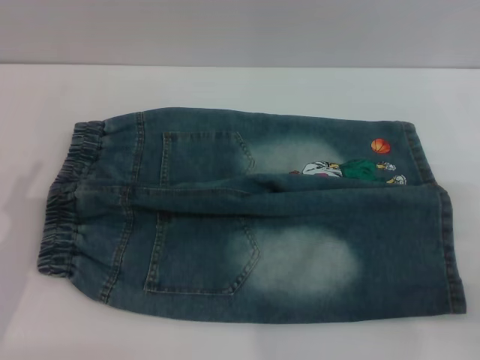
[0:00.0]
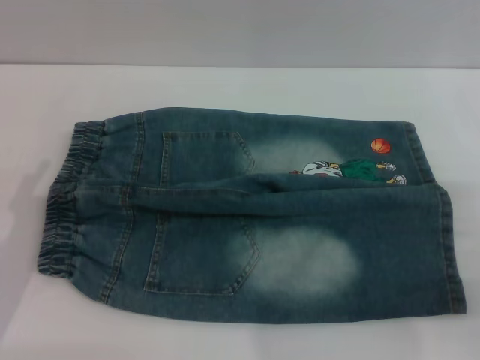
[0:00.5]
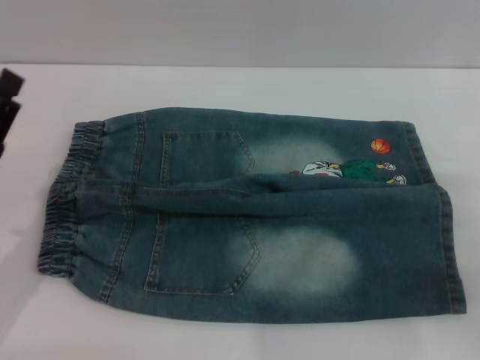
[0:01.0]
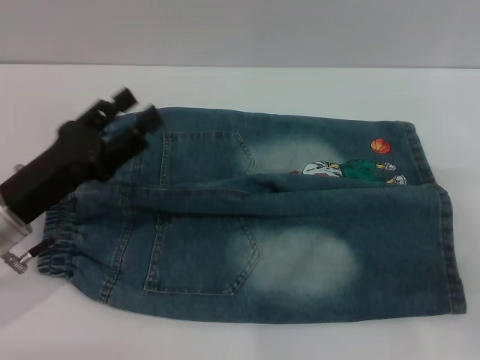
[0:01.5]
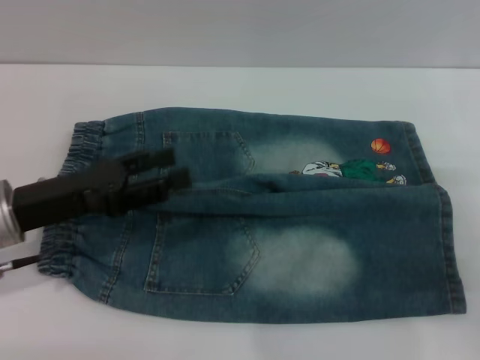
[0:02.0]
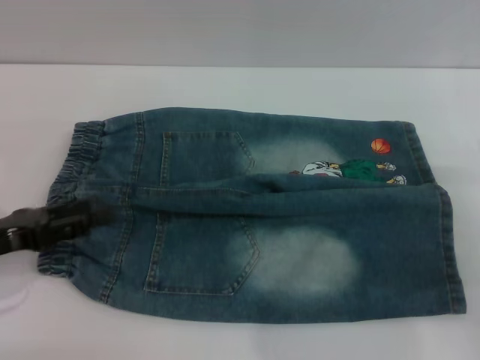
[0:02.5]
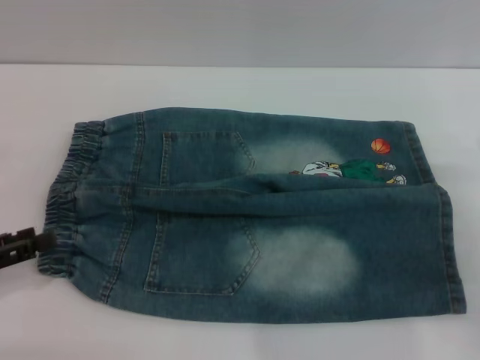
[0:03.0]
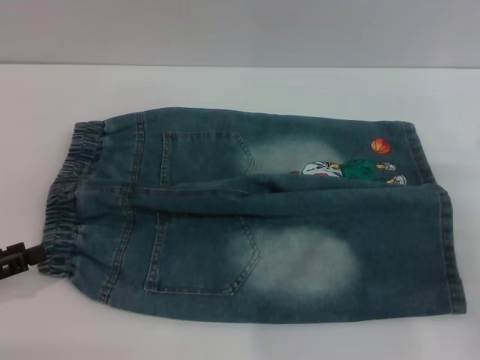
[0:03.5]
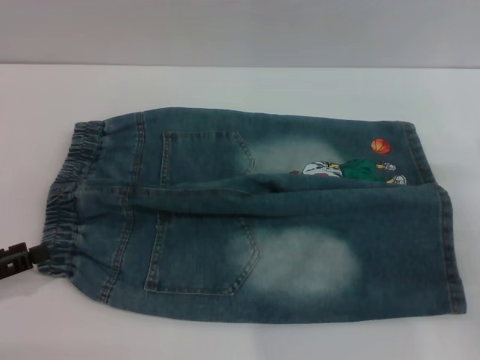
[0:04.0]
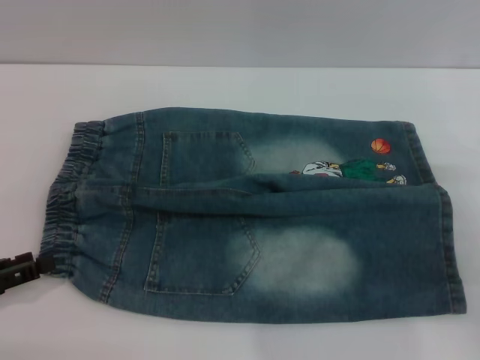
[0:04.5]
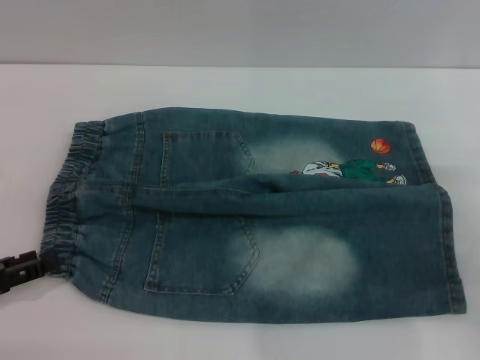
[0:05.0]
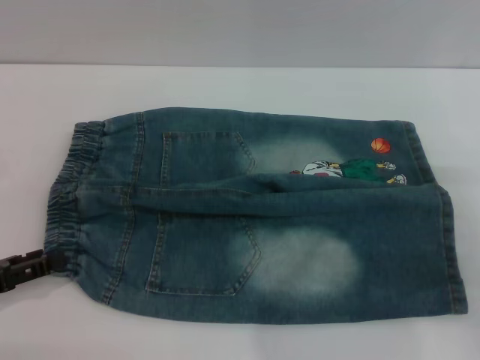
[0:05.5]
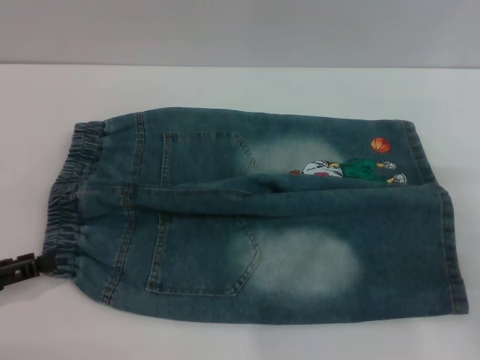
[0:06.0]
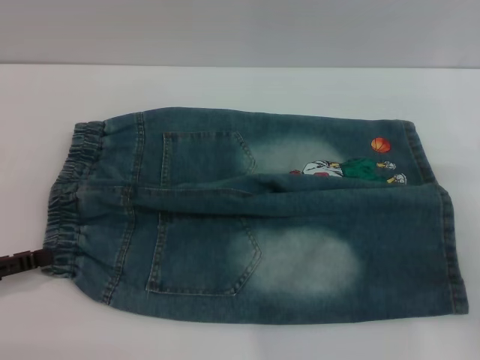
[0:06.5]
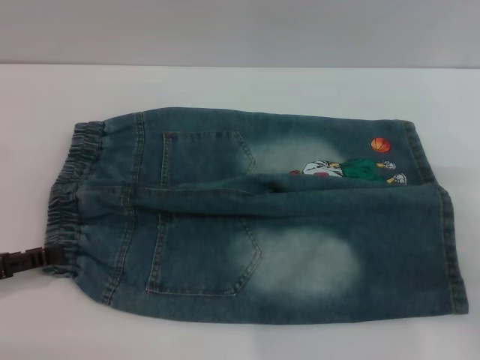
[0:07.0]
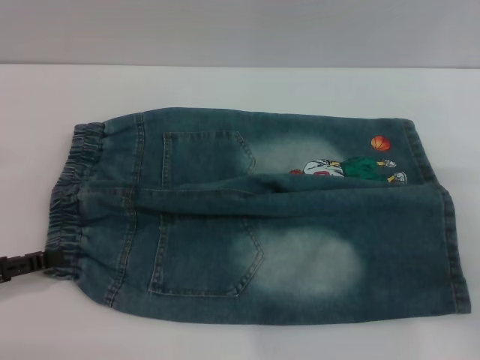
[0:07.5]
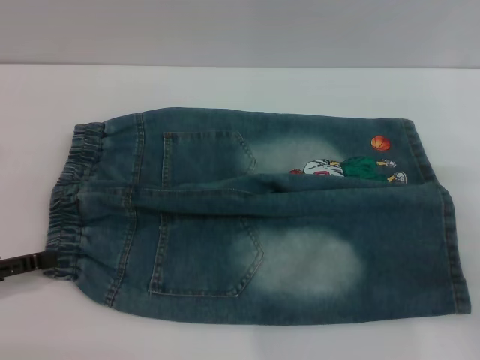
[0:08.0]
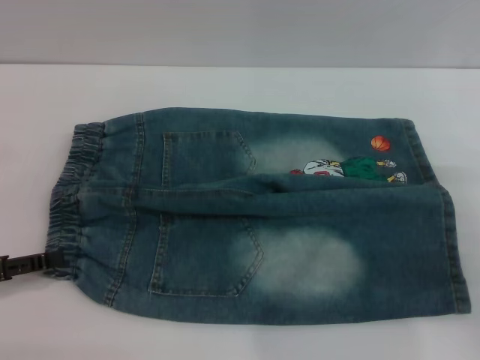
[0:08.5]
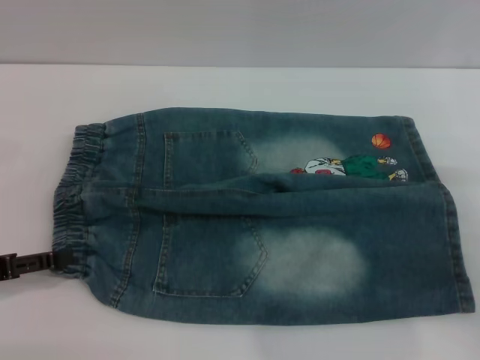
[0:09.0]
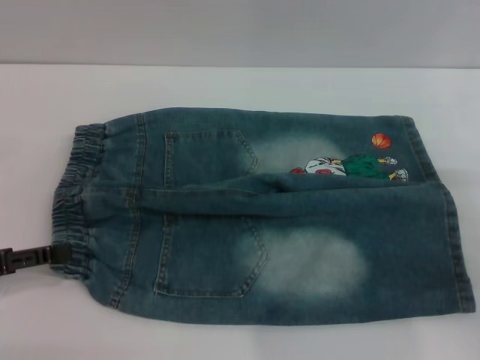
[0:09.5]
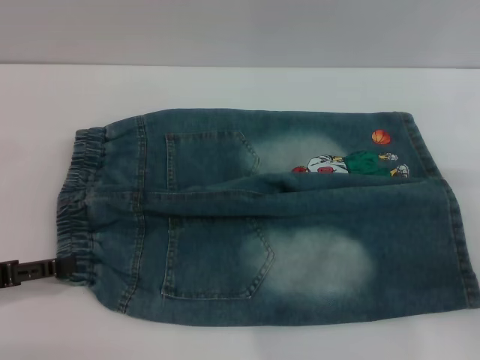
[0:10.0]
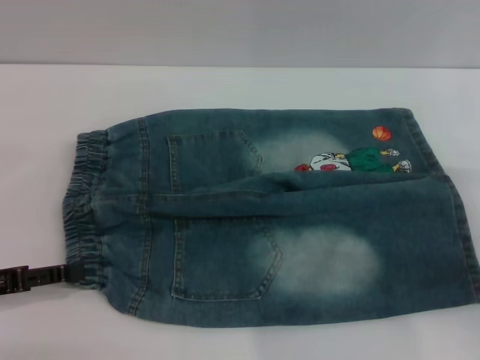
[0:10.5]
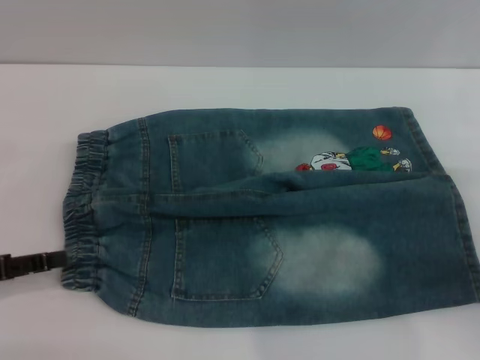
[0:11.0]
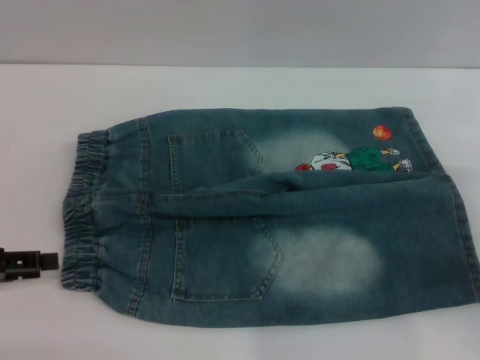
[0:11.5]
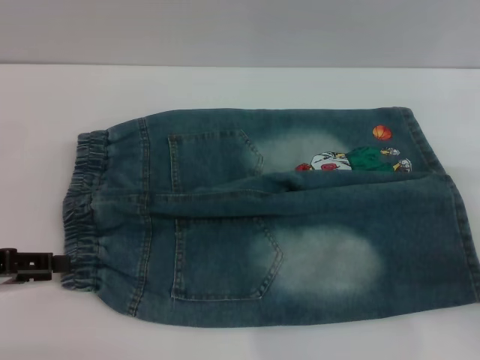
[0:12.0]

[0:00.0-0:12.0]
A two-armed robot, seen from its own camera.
0.0 to 2.0 s: The left gripper heads forward, covering approximately 5 cm.
2.0 to 4.0 s: The left gripper heads to the left and backward, covering about 15 cm.
4.0 to 10.0 s: The grippers move only a little.
10.0 to 12.0 s: The grippers move only a little.

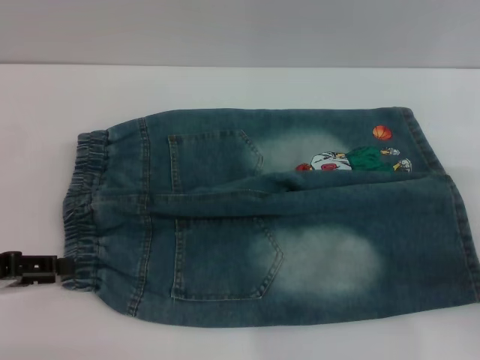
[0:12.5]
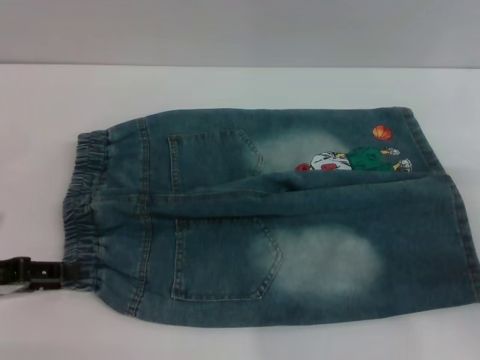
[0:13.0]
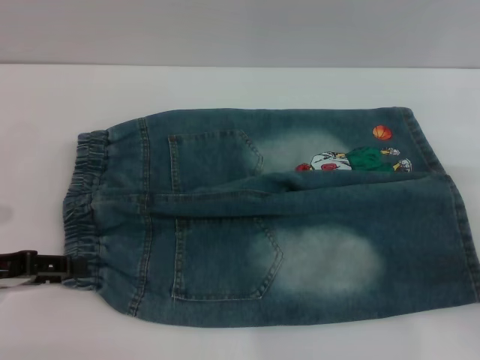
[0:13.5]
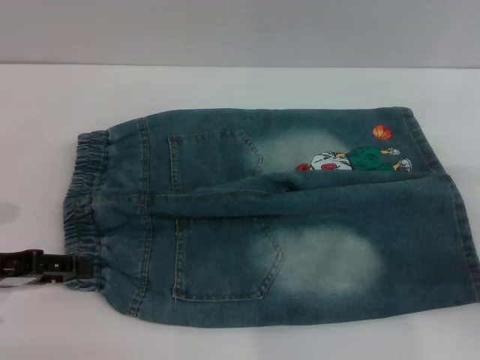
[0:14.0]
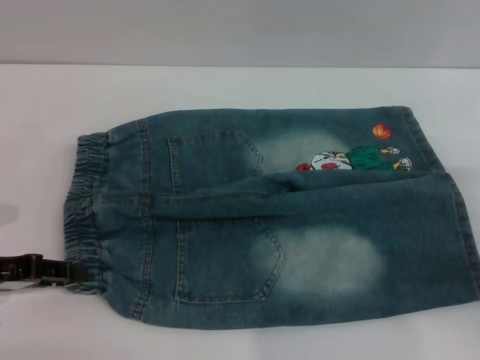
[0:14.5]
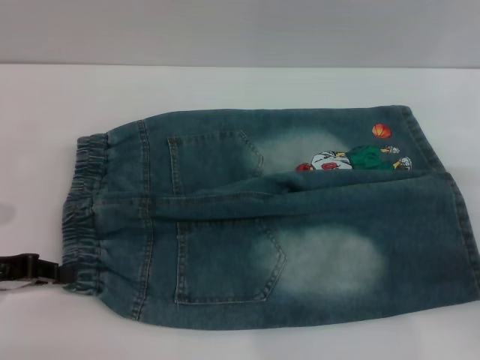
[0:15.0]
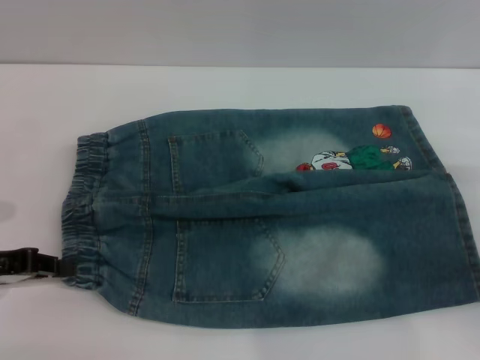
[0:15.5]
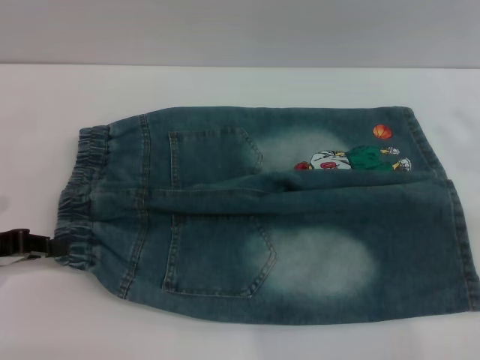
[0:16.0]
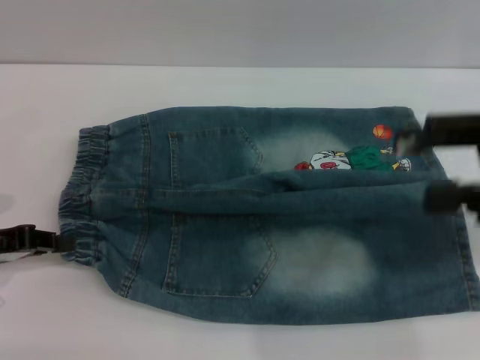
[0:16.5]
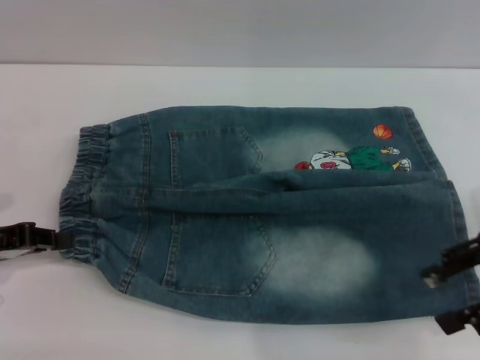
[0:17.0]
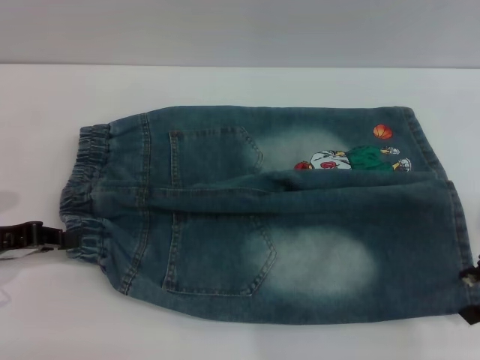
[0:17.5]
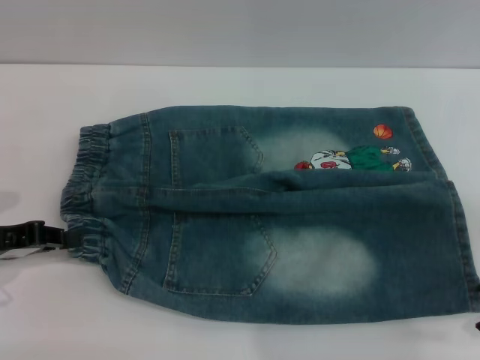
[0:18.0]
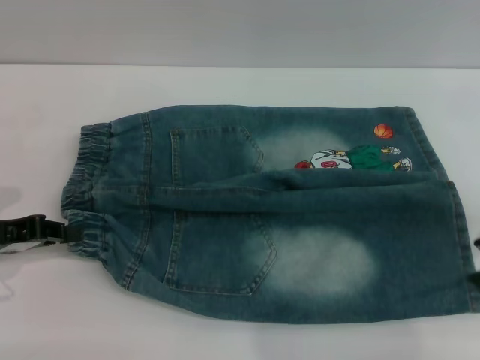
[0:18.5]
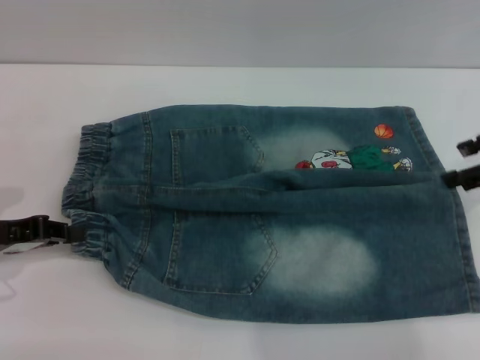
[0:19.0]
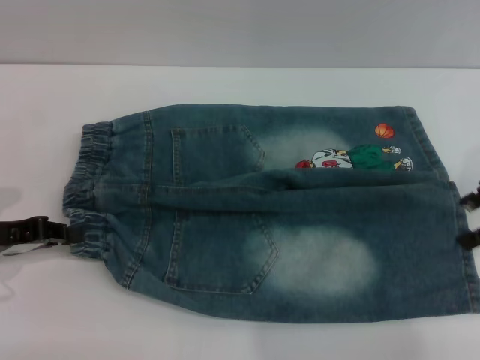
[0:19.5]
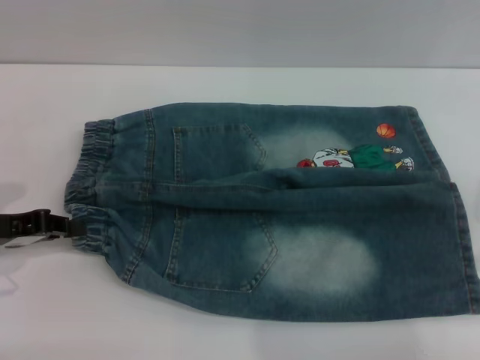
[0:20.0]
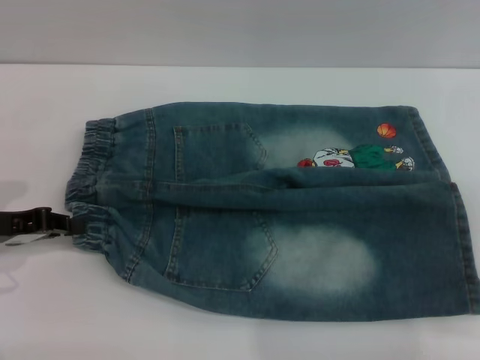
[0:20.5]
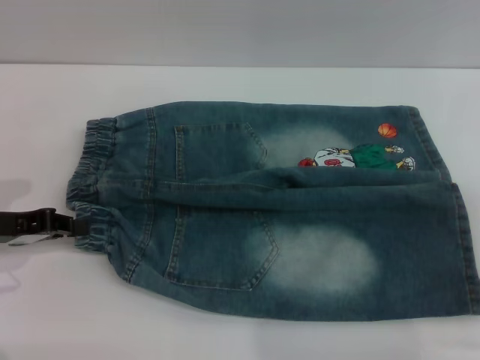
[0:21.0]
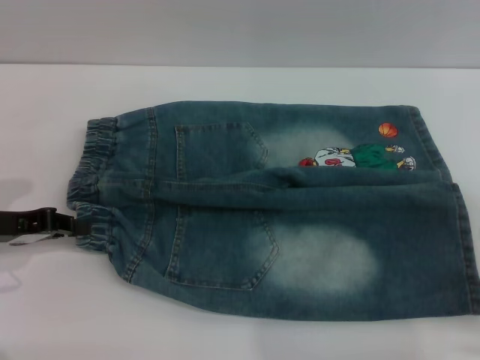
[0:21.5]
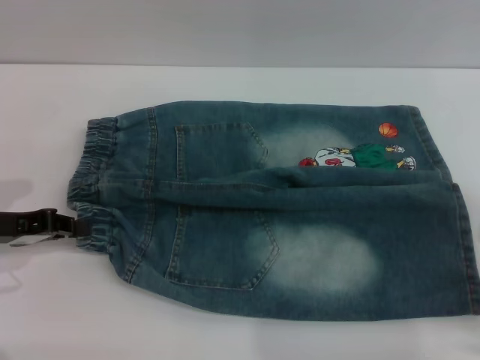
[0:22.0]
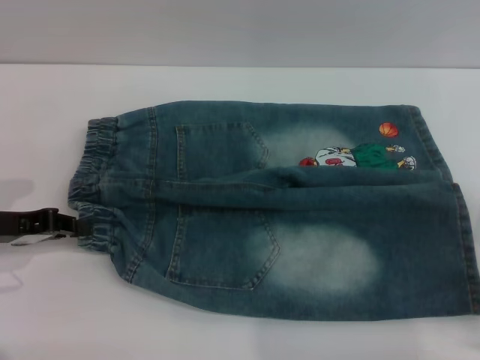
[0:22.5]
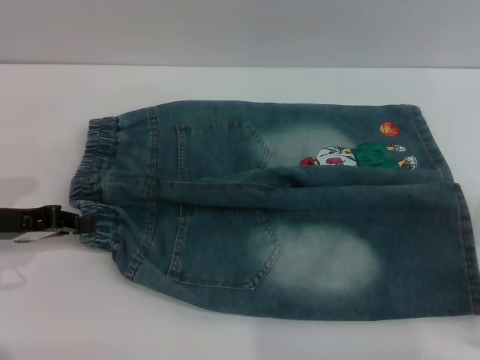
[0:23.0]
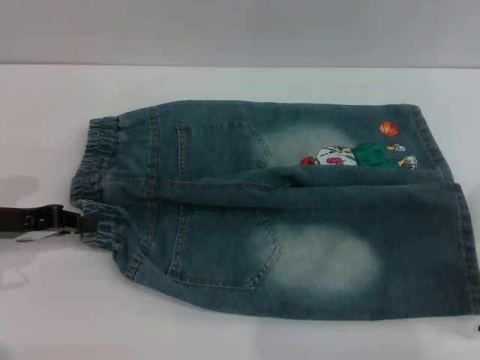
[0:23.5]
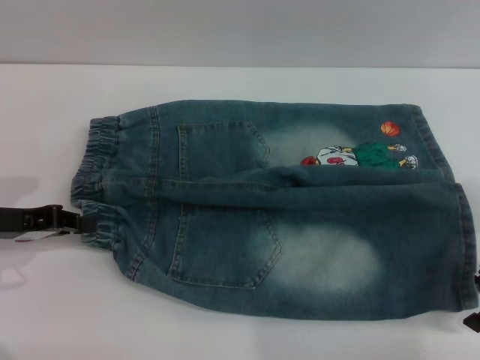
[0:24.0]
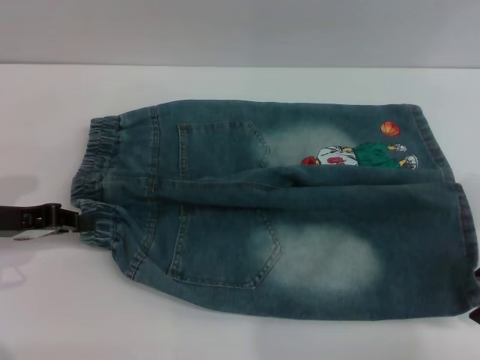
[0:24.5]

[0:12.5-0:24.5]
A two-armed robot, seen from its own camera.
12.5 to 14.5 s: The grippers make only small movements.
14.5 to 16.5 s: The left gripper closes up; the right gripper shifts some 15 cm upward.
16.5 to 18.5 s: The right gripper heads downward and to the right, covering about 10 cm.
20.5 to 24.5 s: The grippers make only small movements.

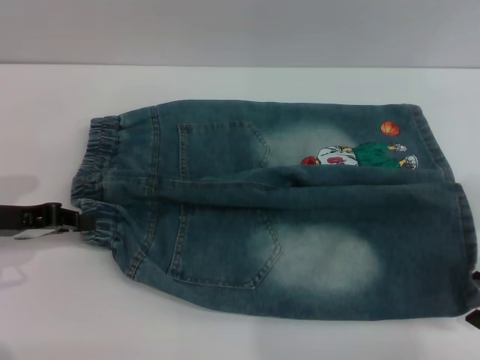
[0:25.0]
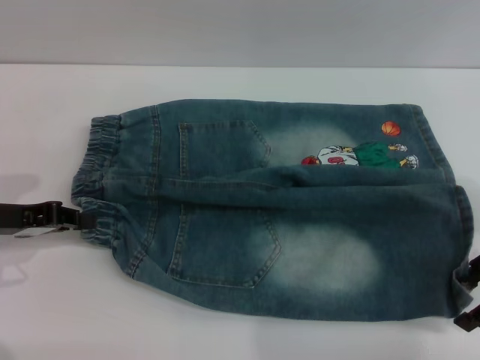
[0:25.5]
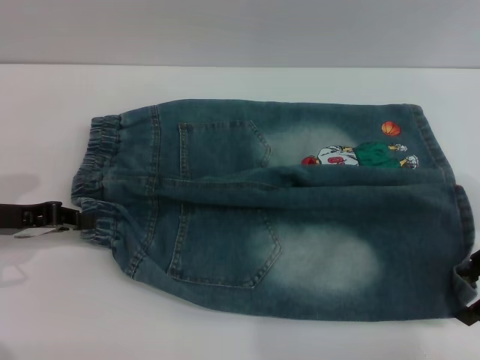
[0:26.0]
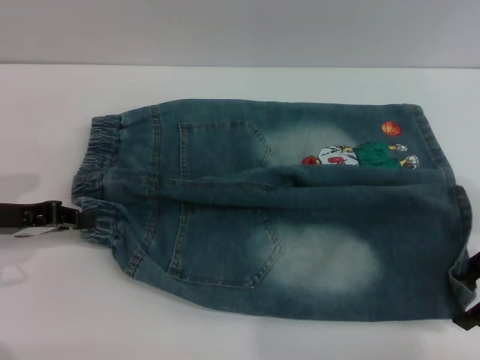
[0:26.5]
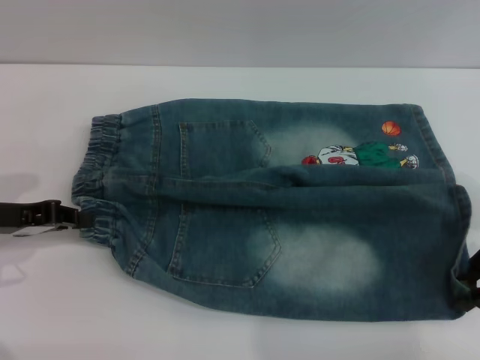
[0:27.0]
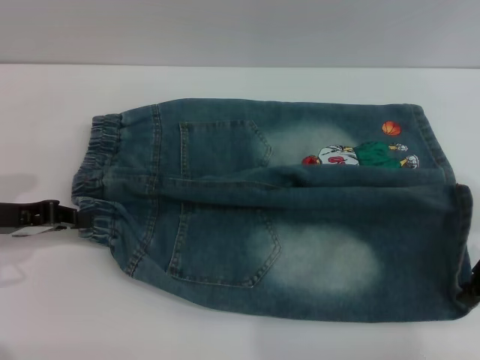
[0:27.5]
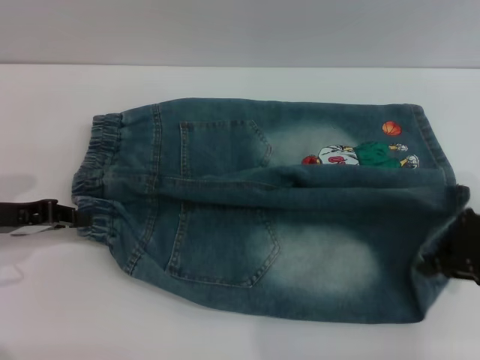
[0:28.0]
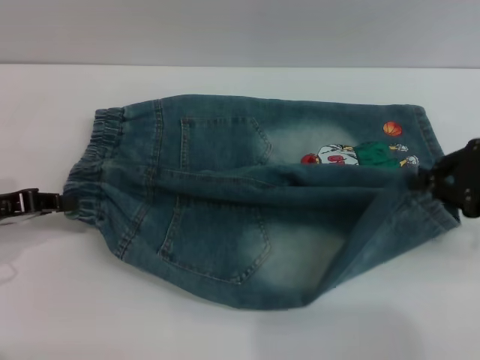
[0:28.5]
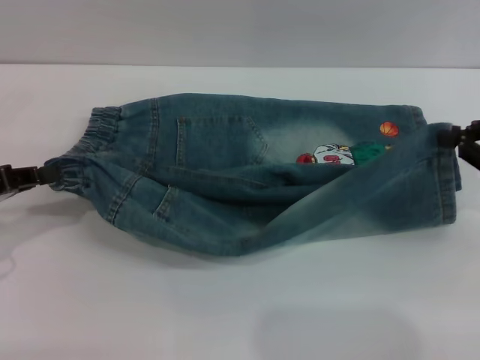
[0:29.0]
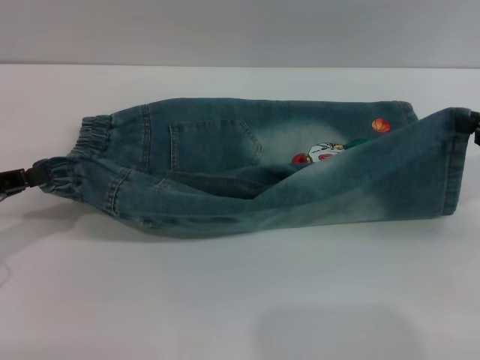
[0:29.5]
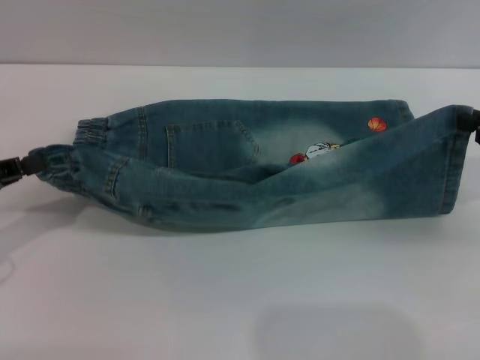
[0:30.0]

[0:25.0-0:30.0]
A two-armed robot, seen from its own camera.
25.0 to 27.5 s: The right gripper closes its fingers.
27.5 to 30.0 s: The left gripper changes place by approximately 5 cm. The right gripper shifts roughly 5 cm to the right.
